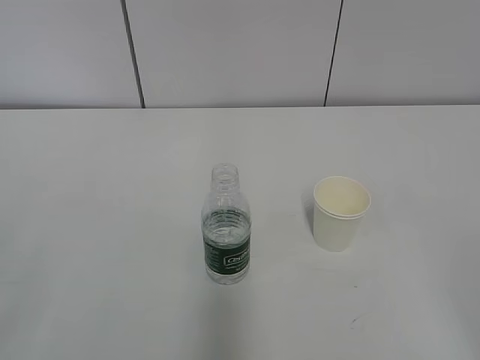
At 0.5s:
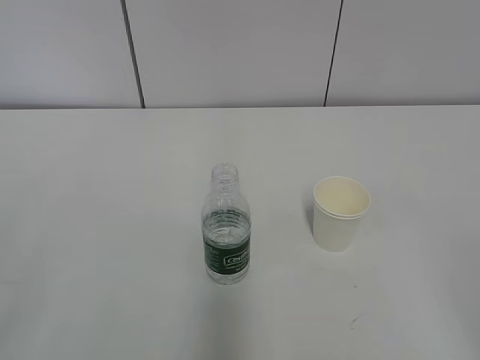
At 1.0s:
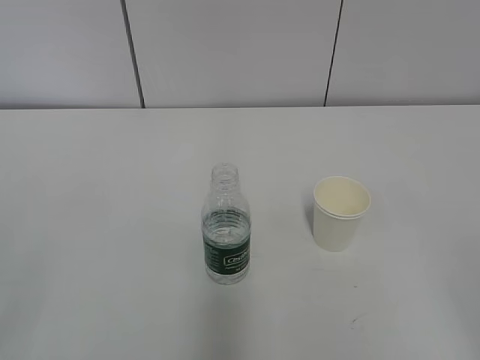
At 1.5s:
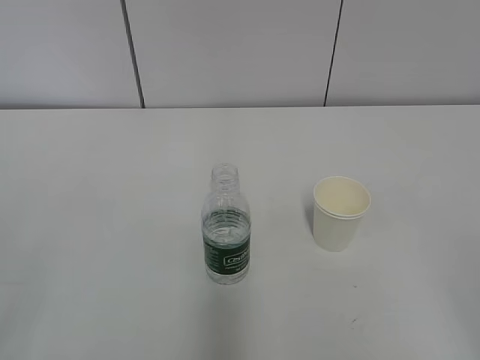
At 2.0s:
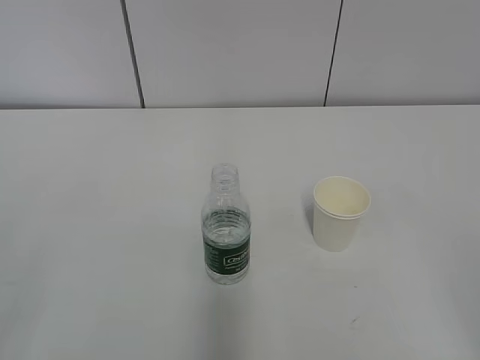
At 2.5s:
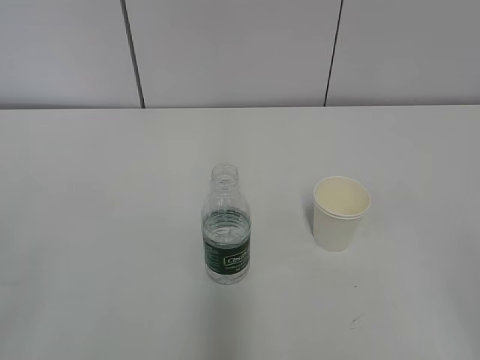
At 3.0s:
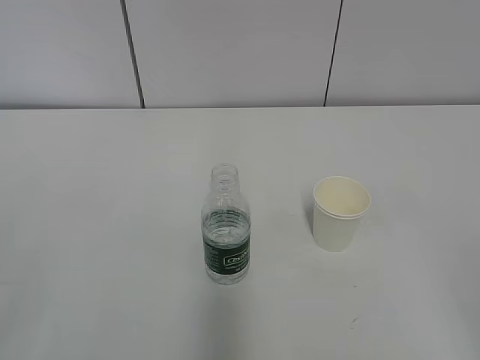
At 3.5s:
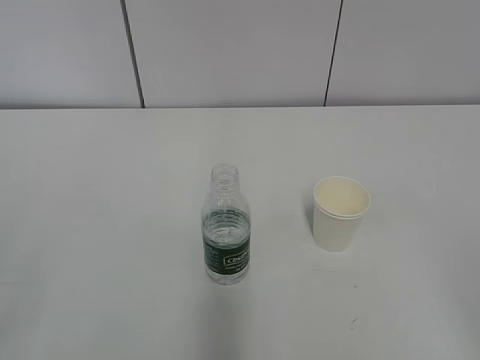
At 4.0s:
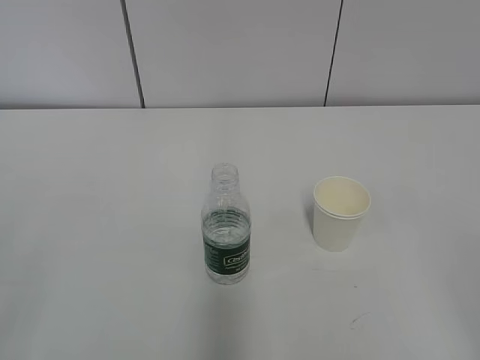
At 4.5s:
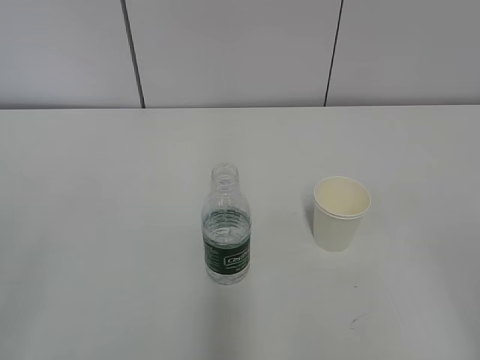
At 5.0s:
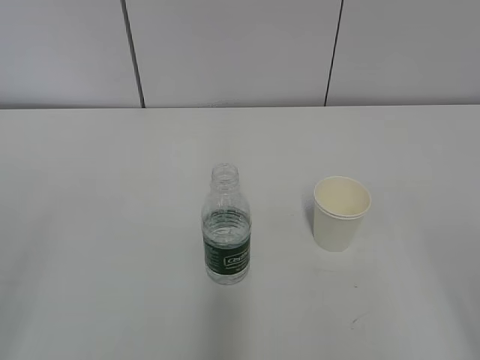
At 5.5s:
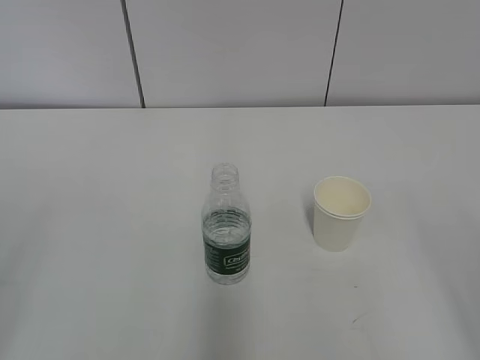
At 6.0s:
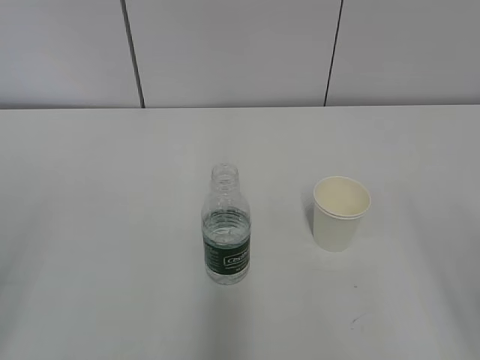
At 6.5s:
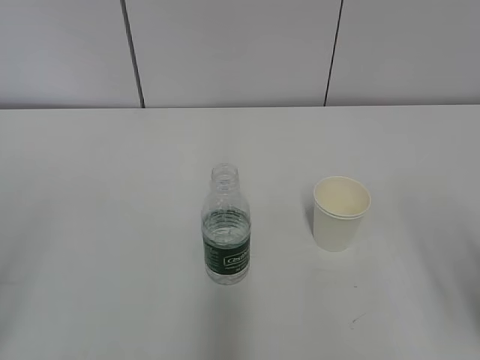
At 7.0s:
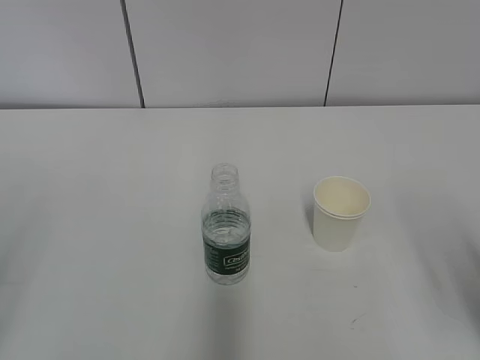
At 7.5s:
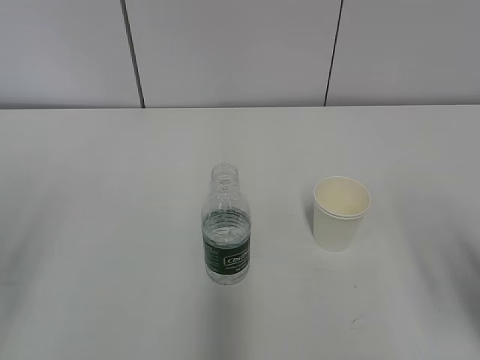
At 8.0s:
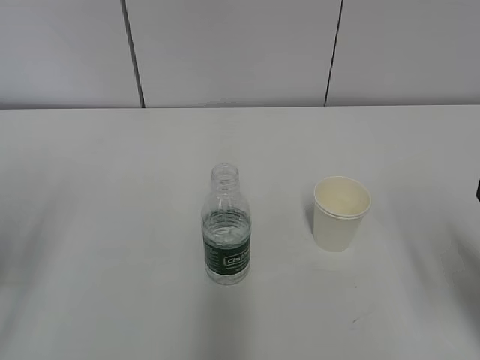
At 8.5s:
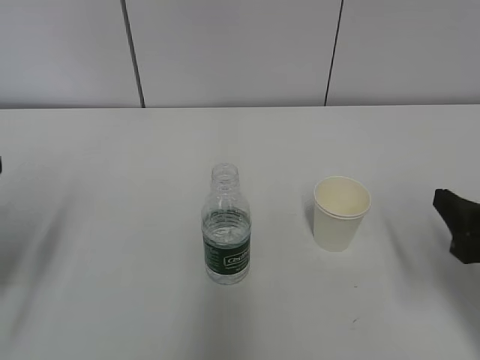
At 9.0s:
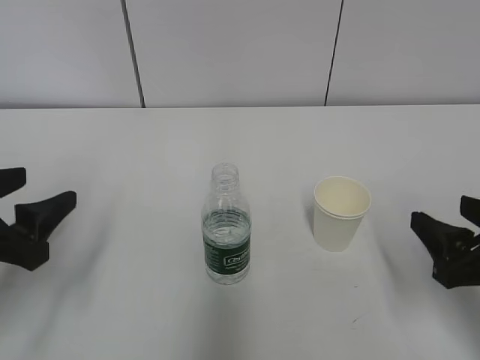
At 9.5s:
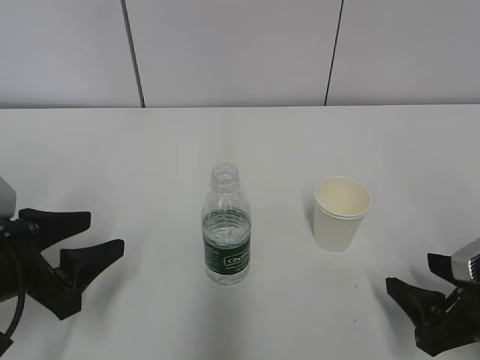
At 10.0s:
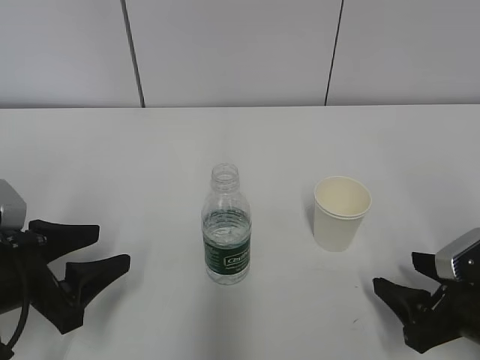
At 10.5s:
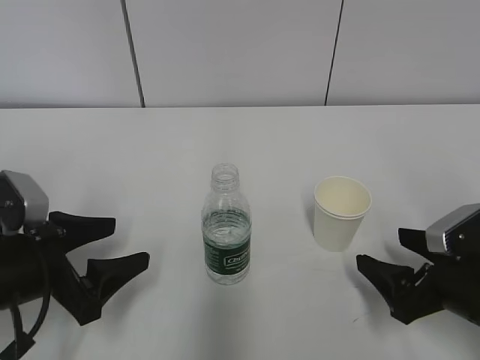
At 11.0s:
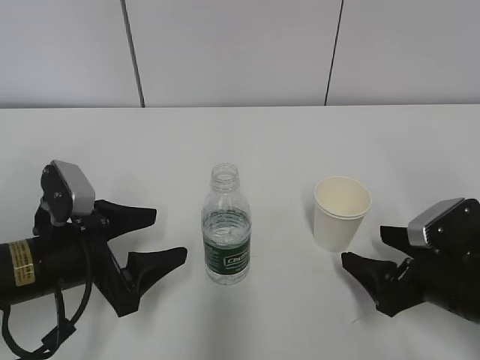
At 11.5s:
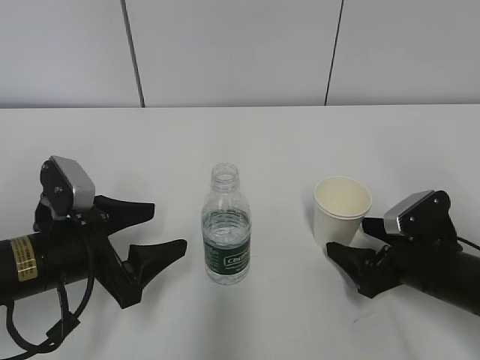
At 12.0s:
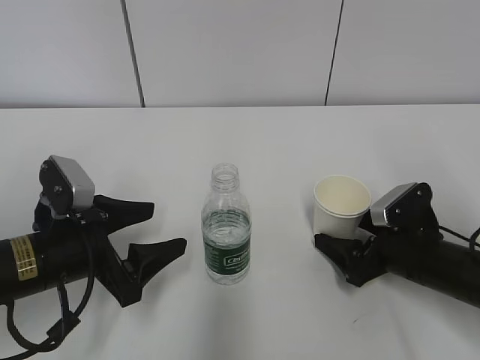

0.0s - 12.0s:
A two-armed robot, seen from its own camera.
Step, 0.0s - 10.5s: Grab the paper cup with the right hand.
2.0s - 4.0s: The two grippers keep their place.
6.0s - 8.0s: The right gripper moves forward, approximately 10 cm.
8.0s - 10.0s: The left gripper is displaced downward and to the right by some 15 cm. The right gripper travels downward by approximately 10 cm.
10.0s - 12.0s: The right gripper heads forward, covering about 10 cm, and opens its fingers; the left gripper changes place by roughly 5 cm.

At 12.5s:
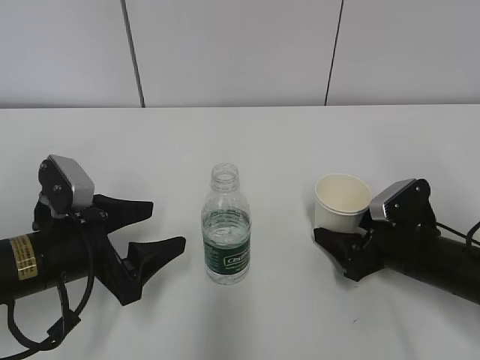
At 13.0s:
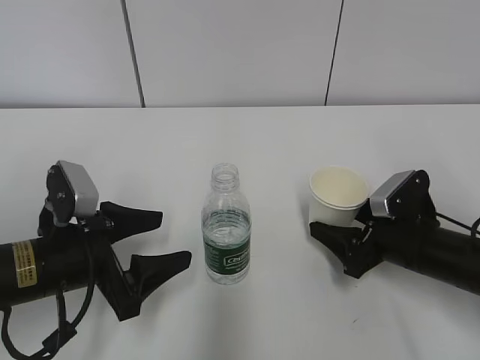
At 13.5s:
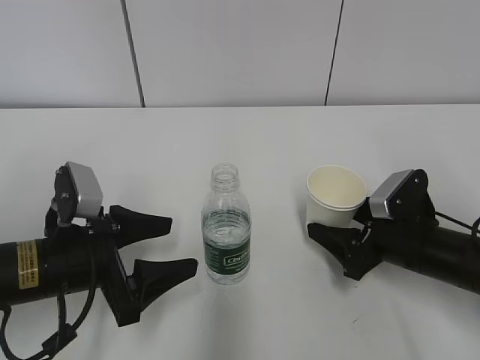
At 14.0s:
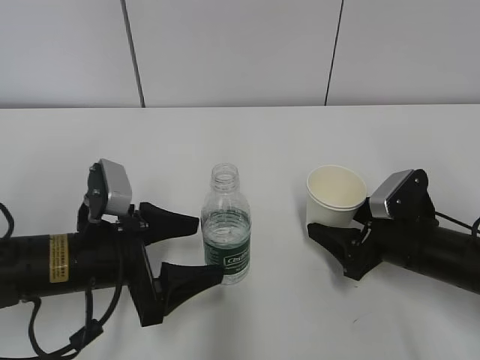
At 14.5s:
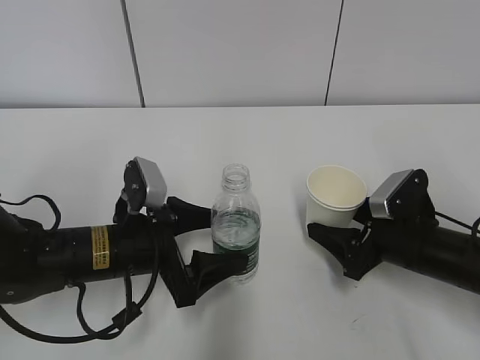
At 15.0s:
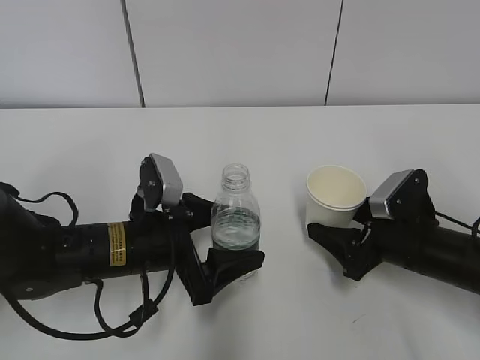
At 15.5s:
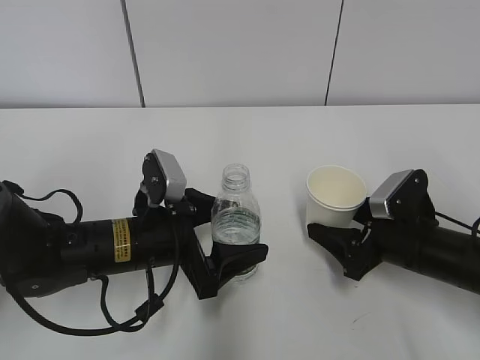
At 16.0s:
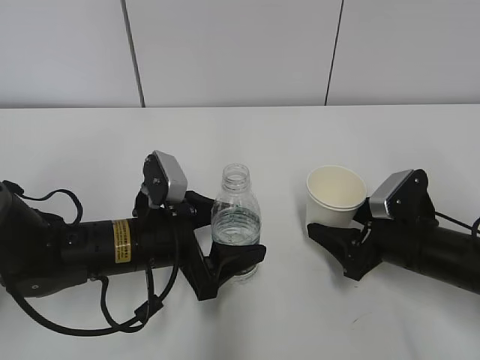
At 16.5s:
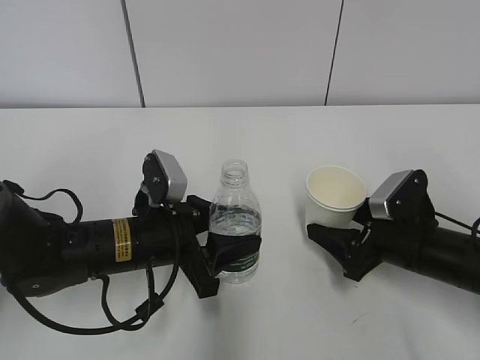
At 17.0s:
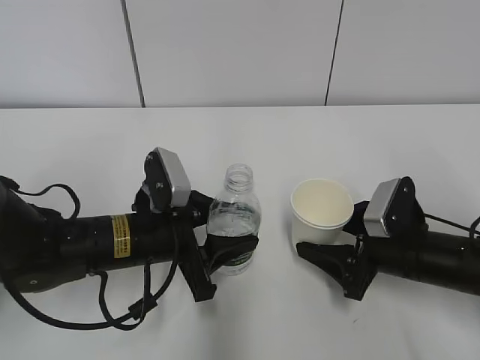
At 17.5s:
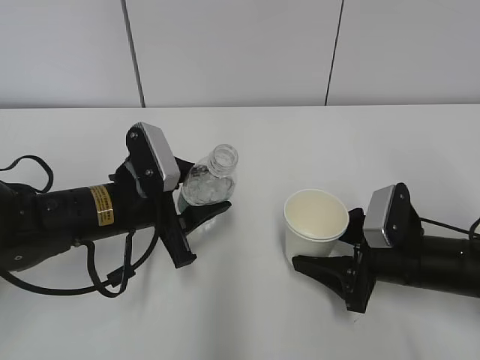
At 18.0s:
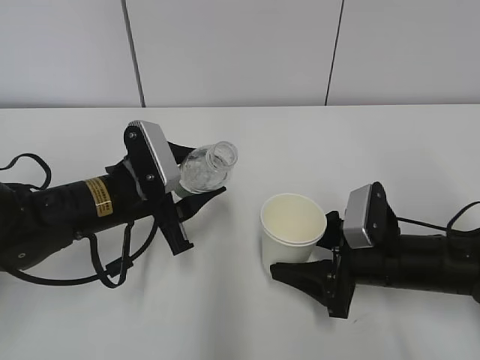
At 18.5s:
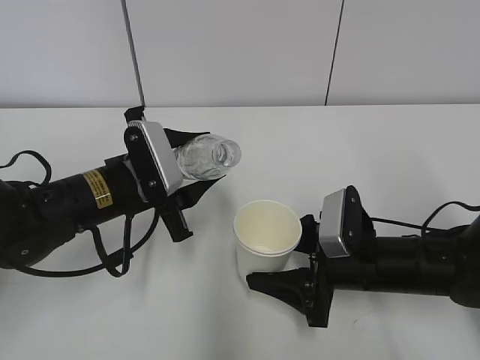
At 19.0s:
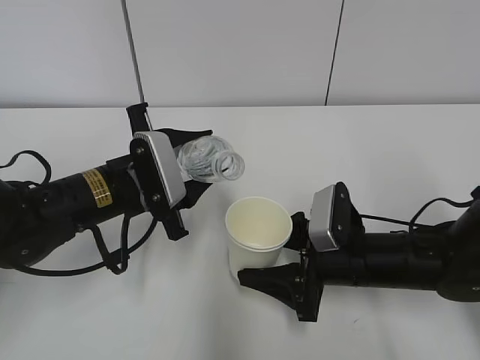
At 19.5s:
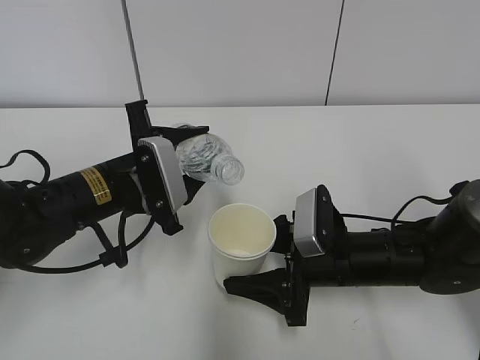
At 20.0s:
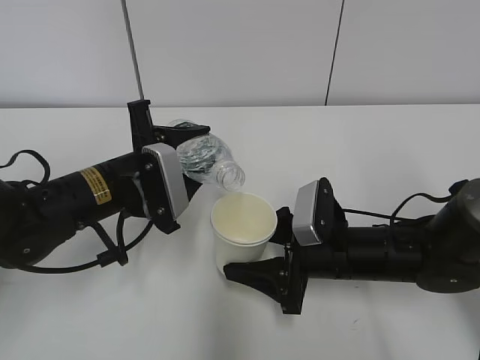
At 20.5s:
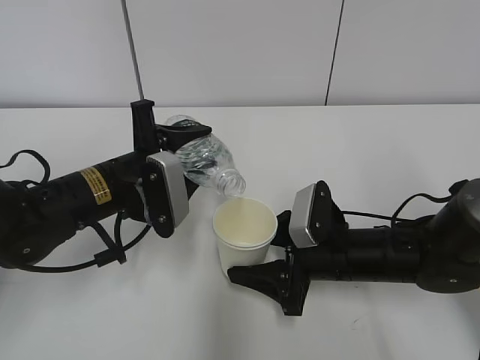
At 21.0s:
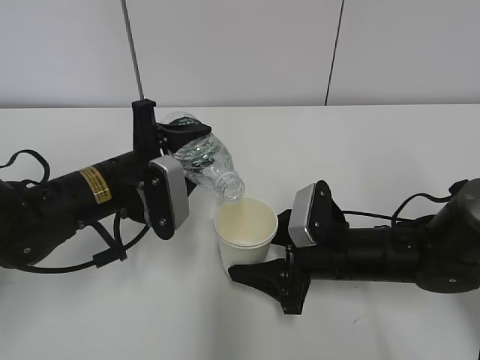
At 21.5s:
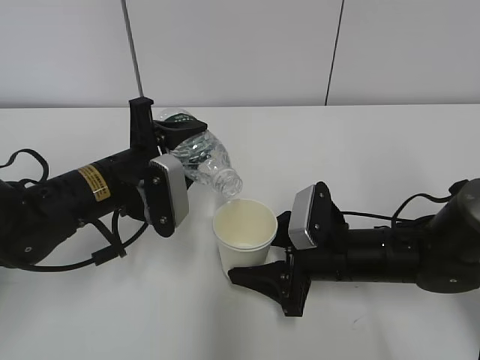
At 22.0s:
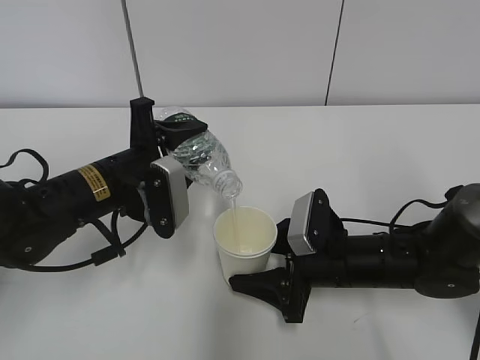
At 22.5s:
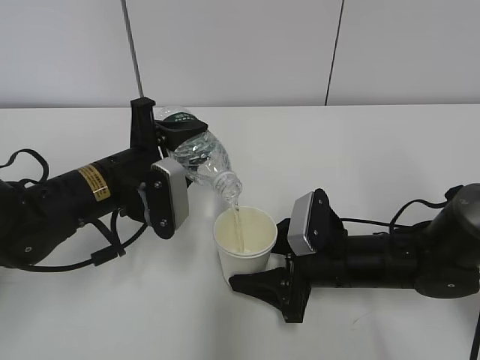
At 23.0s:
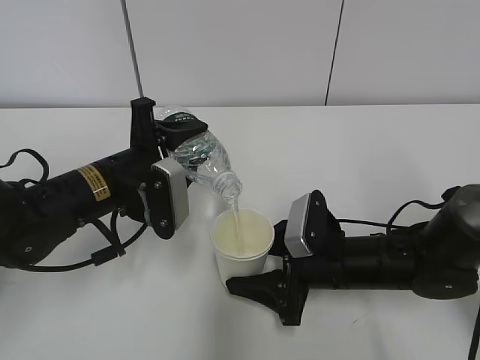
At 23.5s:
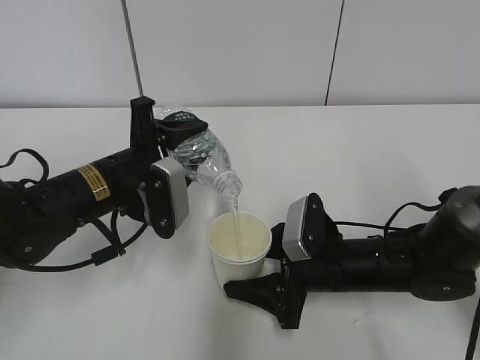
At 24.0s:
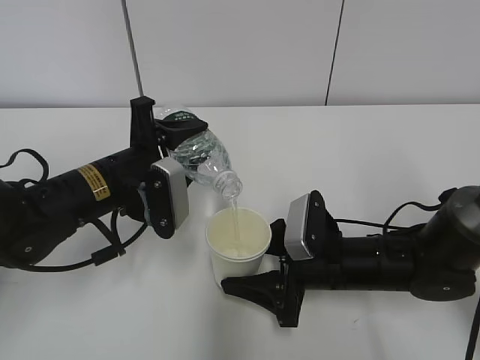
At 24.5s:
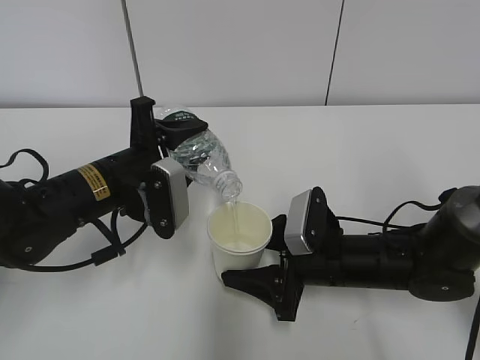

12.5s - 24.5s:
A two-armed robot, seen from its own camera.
Step, 17.5s - 22.5s: Fill water with the right hand.
Step, 17.5s - 22.5s: Pour water with the left hand.
Step, 23.0s - 23.5s: Collect water with the right hand.
12.5s - 14.5s: The right gripper closes its fingers. Meanwhile the left gripper travels to the right by some 5 cm.
14.5s - 16.5s: The left gripper closes.
16.5s - 18.5s: The right gripper travels to the left by roughly 5 cm. Meanwhile the left gripper changes place by approximately 5 cm.
20.5s - 22.5s: There are only small adjustments of the grippers.
22.5s - 24.5s: Neither gripper changes place.

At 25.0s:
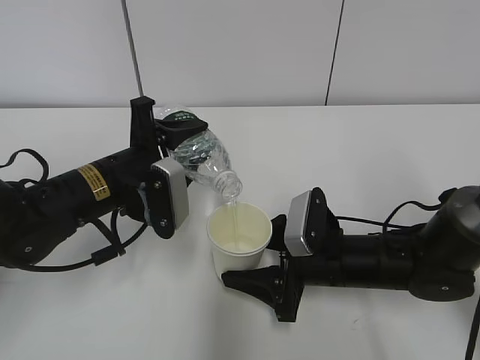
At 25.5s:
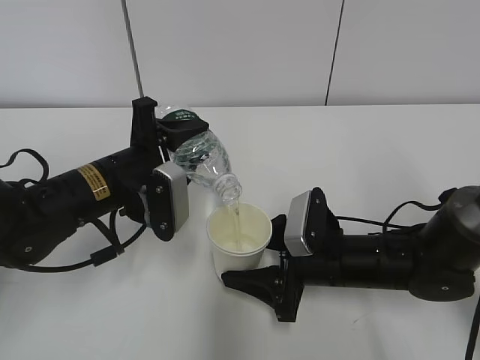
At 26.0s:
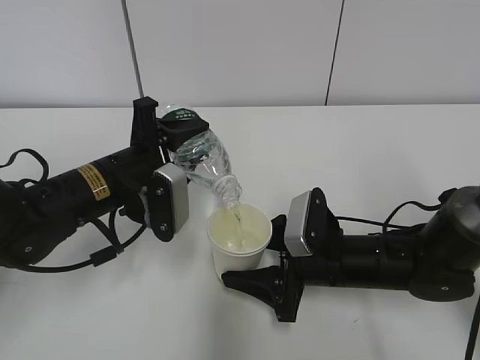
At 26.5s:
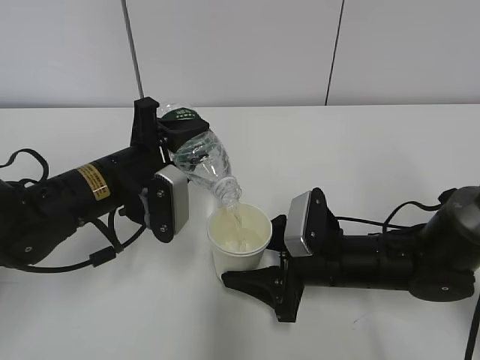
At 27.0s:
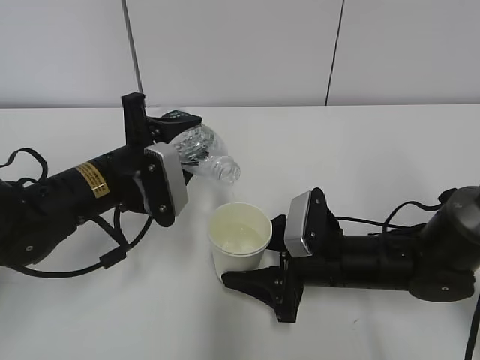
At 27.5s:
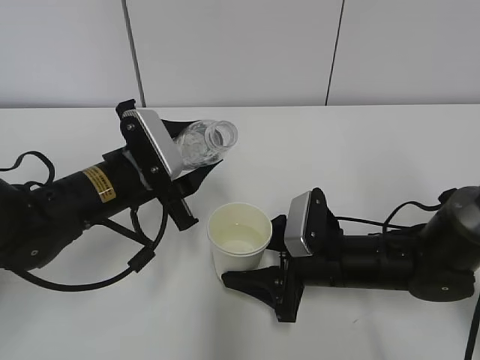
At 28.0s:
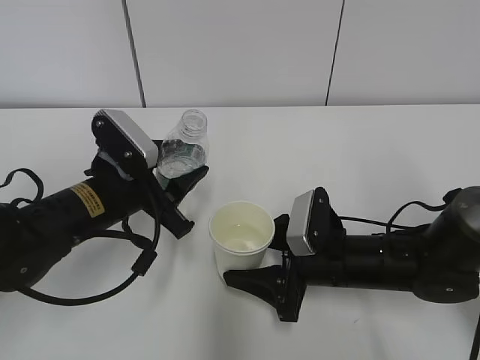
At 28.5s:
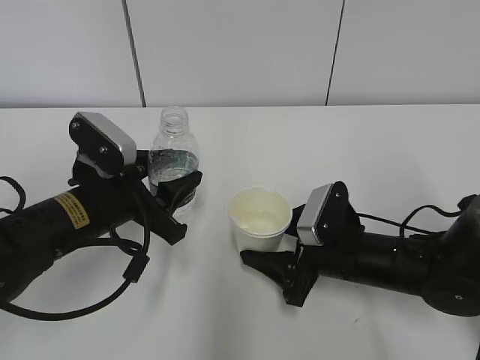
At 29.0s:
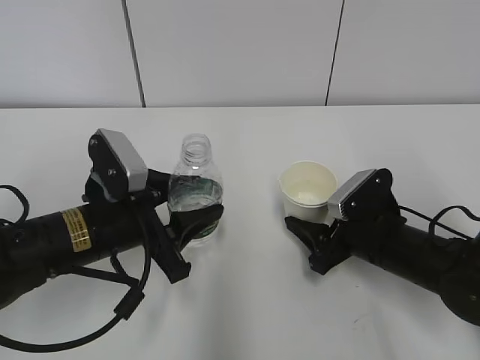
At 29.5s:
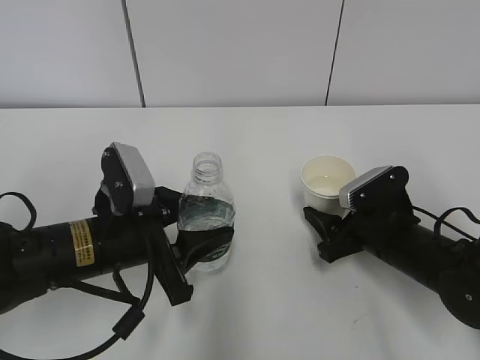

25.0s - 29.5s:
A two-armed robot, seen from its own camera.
Step, 25.0s - 26.5s: Place the paper cup with the right hand.
25.0s - 27.0s: The grippers make only small movements.
27.0s - 29.5s: The left gripper goes about 5 cm backward, while the right gripper goes about 5 cm to the right.
